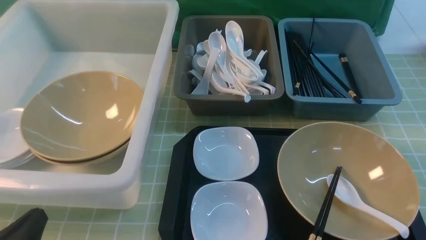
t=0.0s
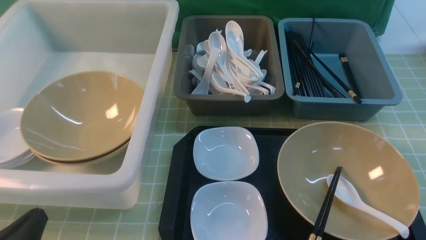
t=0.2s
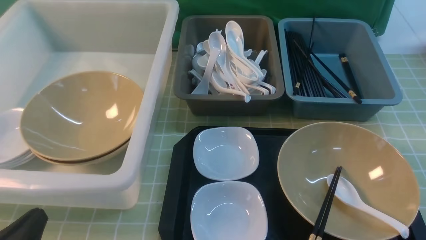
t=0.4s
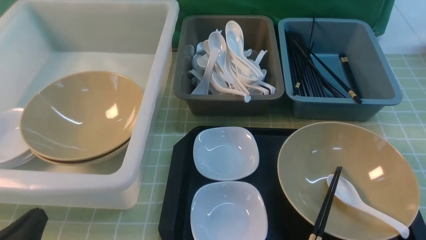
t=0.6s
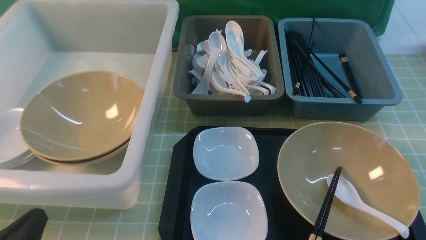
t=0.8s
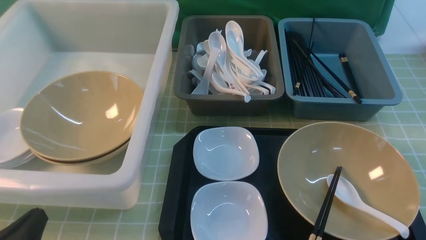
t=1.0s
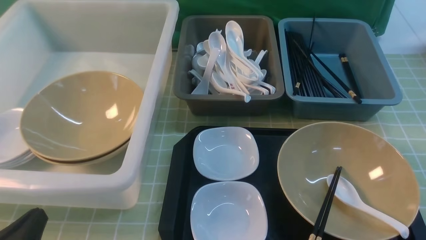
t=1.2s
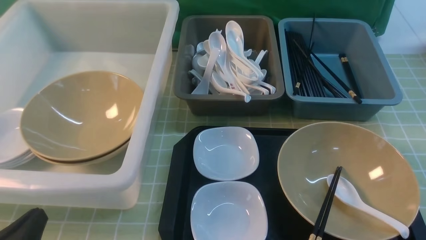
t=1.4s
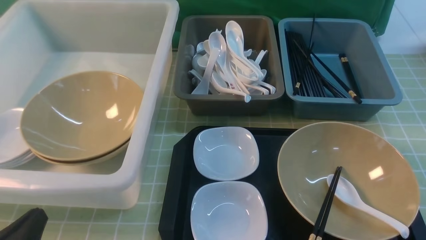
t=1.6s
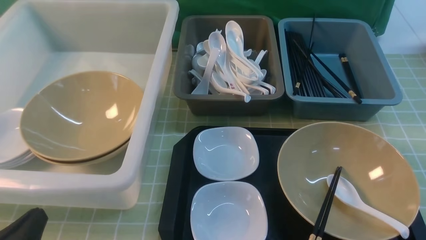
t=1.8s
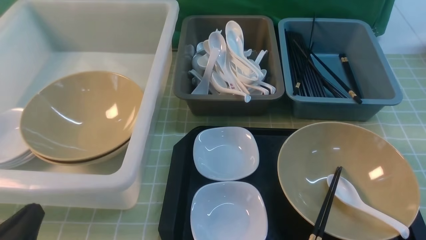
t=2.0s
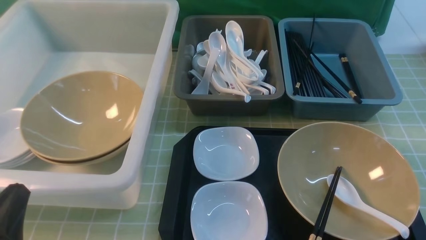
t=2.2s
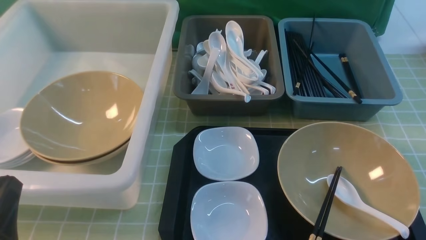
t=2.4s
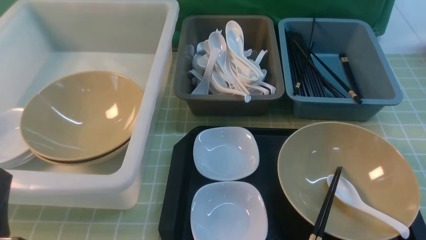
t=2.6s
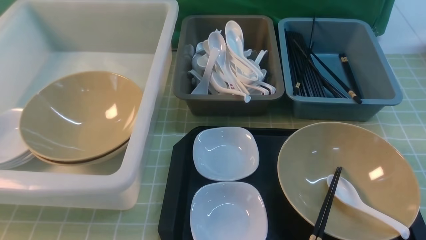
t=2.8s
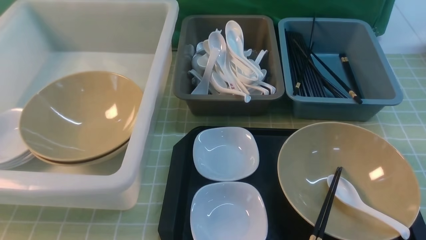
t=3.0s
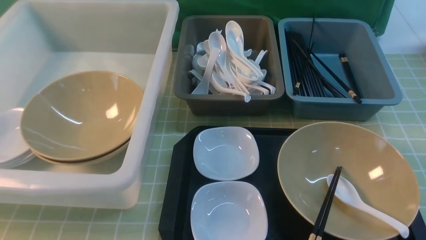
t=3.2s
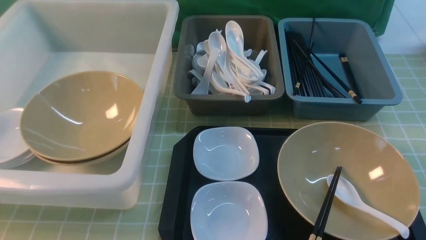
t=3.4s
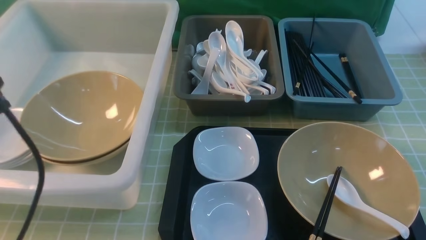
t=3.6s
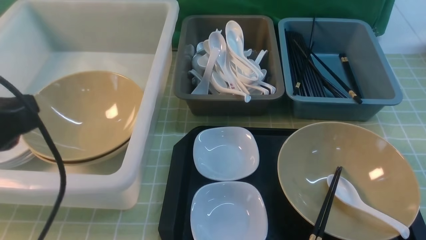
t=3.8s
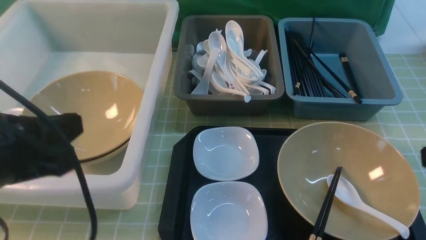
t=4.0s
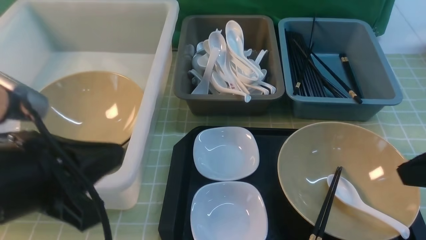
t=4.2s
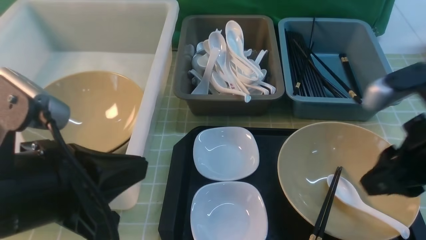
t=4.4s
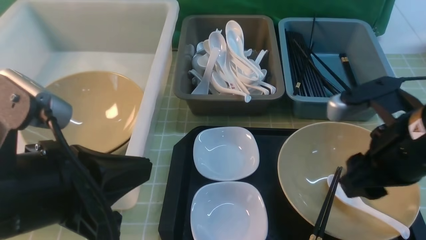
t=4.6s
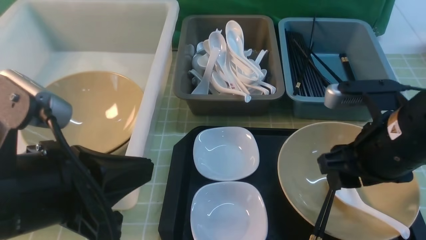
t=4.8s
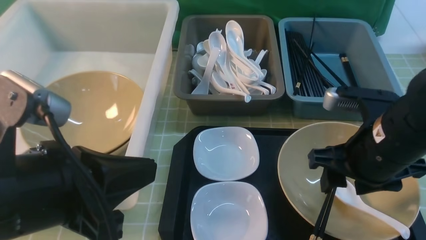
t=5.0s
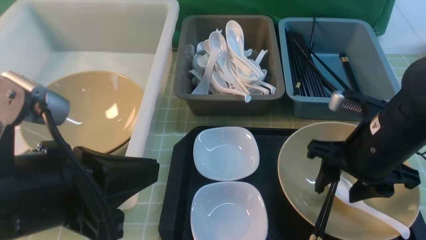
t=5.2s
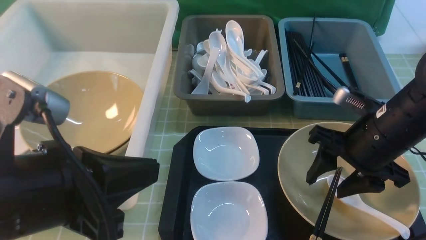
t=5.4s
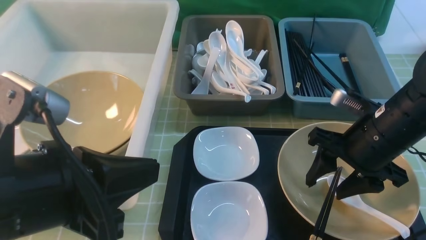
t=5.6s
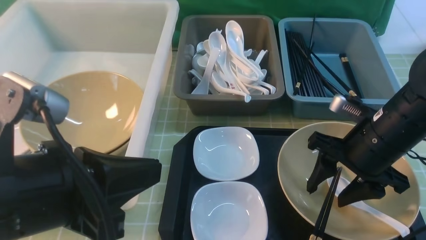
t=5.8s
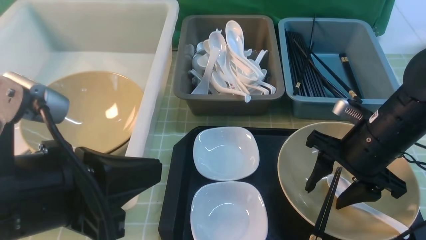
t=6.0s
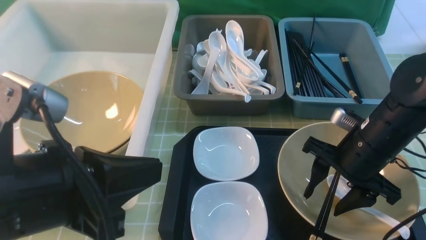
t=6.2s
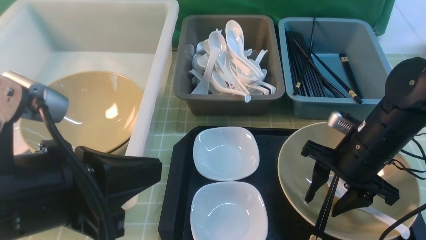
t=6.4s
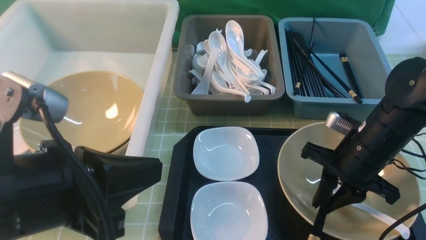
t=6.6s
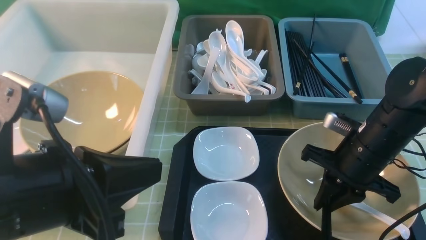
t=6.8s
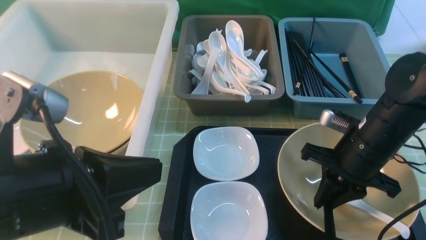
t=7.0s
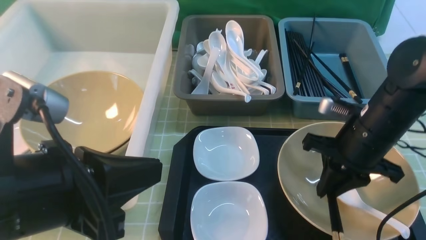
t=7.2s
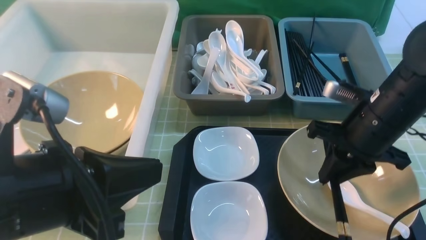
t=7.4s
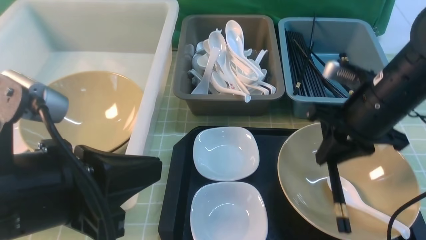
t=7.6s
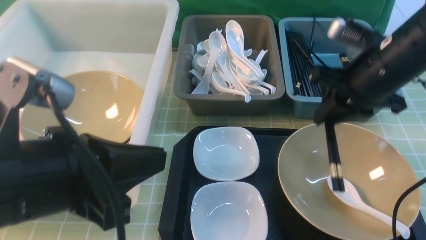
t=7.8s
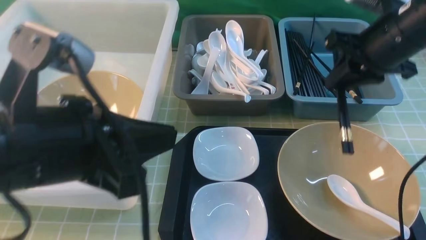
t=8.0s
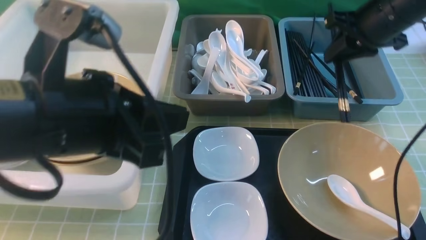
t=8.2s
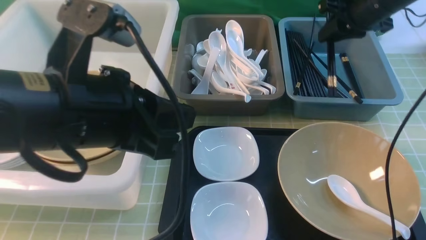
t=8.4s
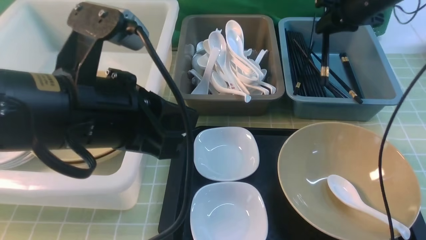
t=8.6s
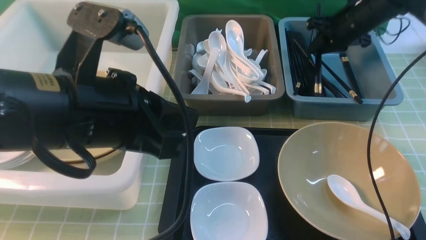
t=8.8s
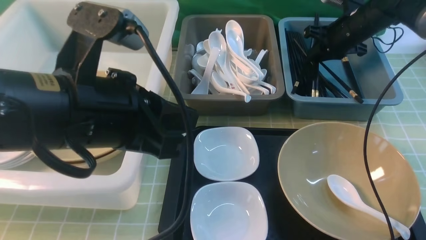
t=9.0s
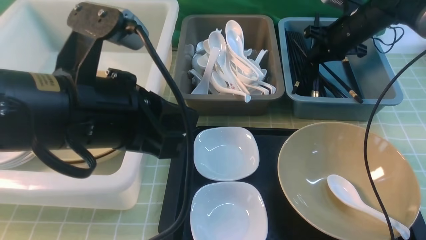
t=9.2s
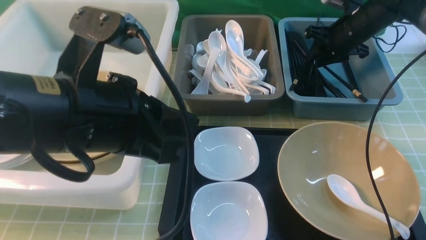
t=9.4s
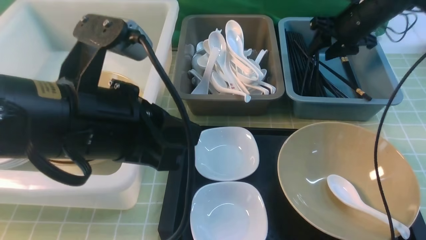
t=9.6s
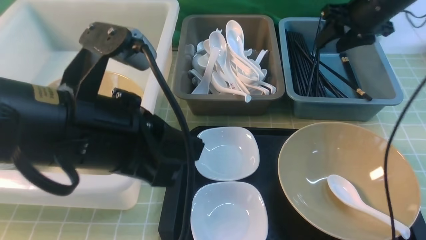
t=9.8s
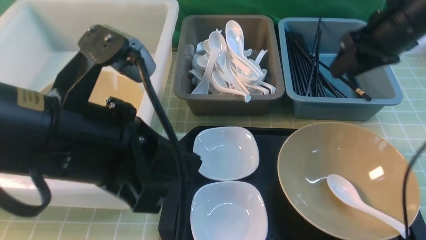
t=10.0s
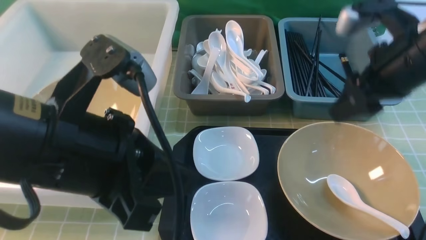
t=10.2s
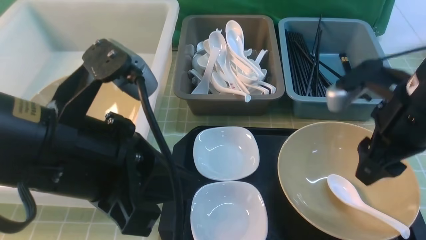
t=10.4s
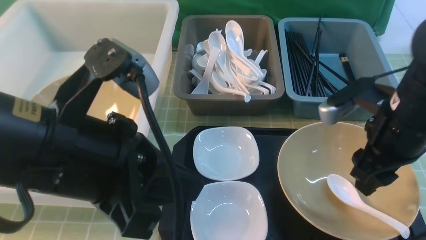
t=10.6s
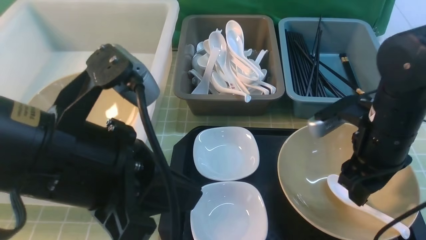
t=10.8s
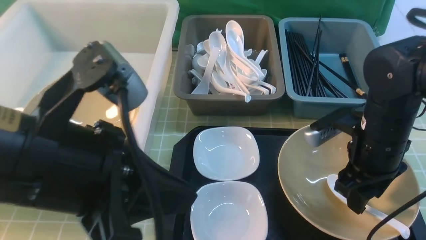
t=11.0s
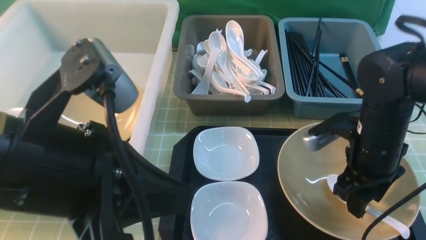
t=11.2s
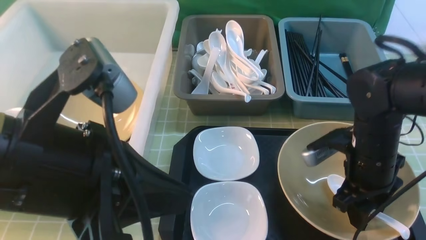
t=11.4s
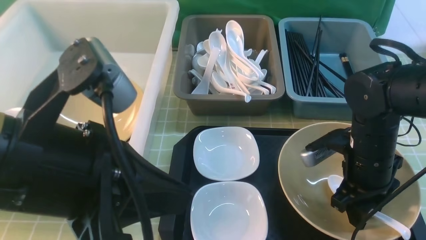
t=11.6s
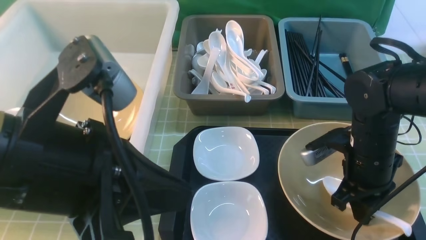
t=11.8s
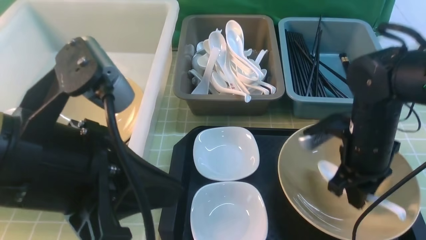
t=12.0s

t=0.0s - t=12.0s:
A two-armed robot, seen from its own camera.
Task of the whole recording: on green table put chopsticks spoon bowls plates into blue grey white boxes.
Step, t=0.0s - t=7.8s: use the right arm to grab the chopsticks.
Step, t=8.2s - t=10.0s: use the right arm to put the chopsticks into the small storage box on the right.
t=0.0s - t=1.6s: Neither gripper changes place.
t=1.6s - t=3.0s: The left gripper moves upward, about 10 cm.
t=3.0s - t=4.4s: The right gripper travels forward and to the left by roughly 20 cm, while the left gripper is displaced to the right, forward and upward by about 10 cm.
t=4.4s - t=6.0s: The right gripper shifts some 10 cm downward and forward.
t=6.0s - t=7.6s: The right gripper travels upward by roughly 5 cm, and closes up.
t=7.6s - t=9.0s: The right gripper goes some 25 cm forward. The left gripper is displaced forward by roughly 5 cm.
t=9.0s - t=10.4s: The right gripper goes approximately 25 cm backward, and opens its fingers.
t=10.4s - t=12.0s: The right gripper shifts roughly 10 cm downward, and closes up.

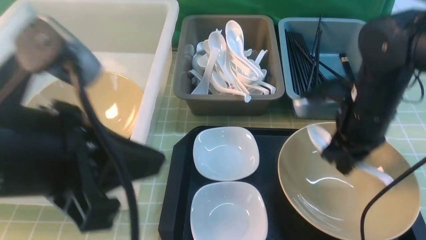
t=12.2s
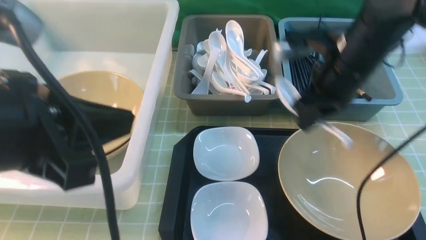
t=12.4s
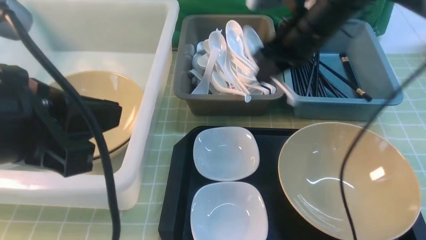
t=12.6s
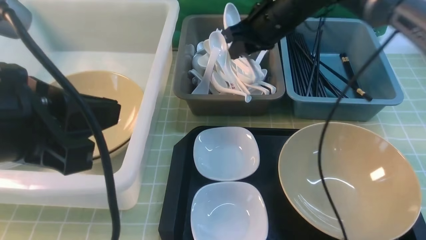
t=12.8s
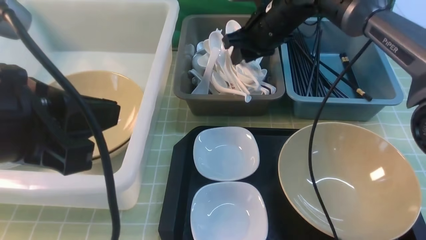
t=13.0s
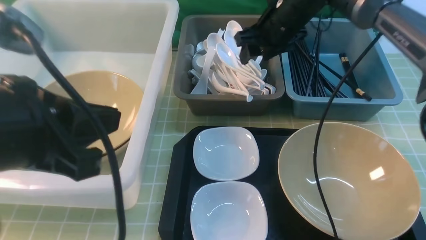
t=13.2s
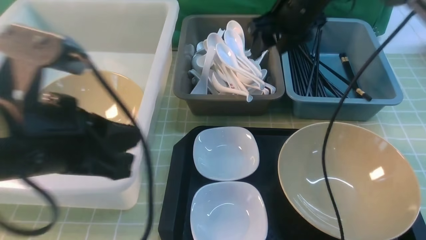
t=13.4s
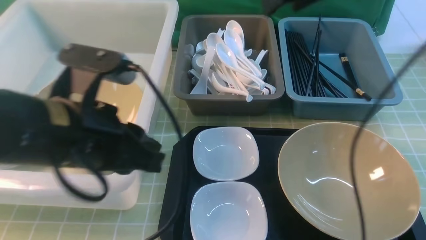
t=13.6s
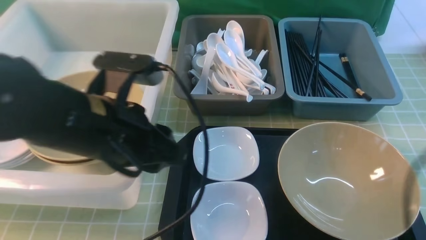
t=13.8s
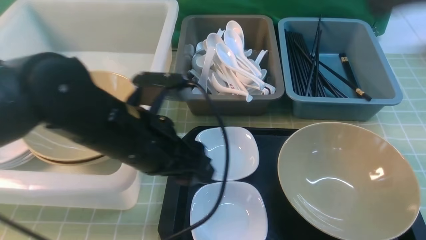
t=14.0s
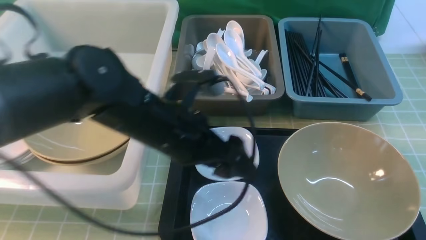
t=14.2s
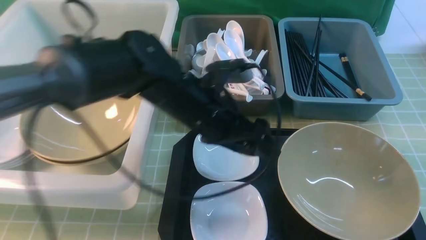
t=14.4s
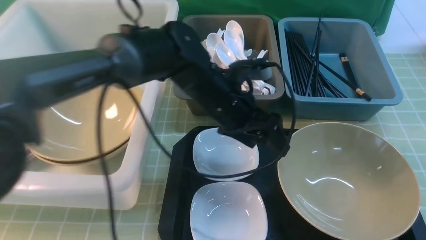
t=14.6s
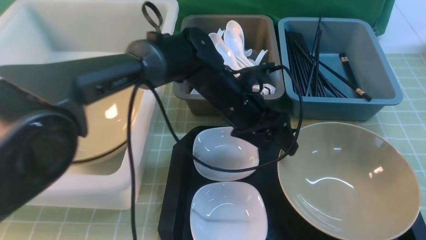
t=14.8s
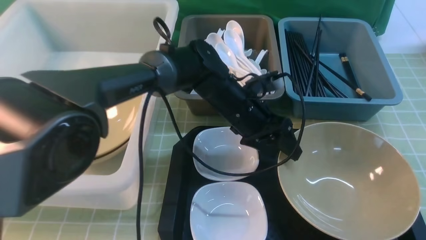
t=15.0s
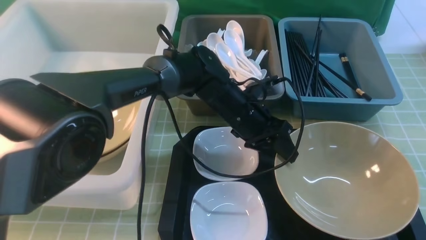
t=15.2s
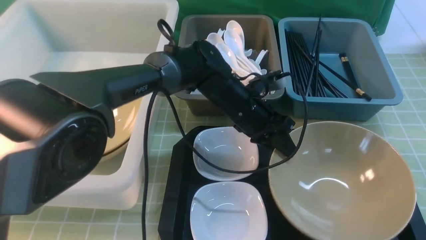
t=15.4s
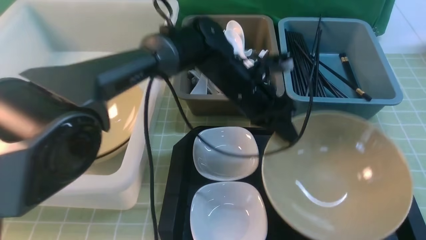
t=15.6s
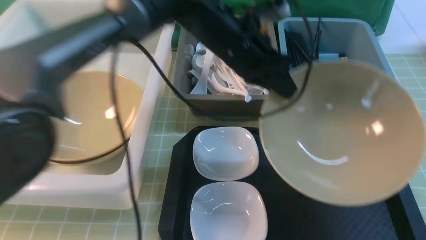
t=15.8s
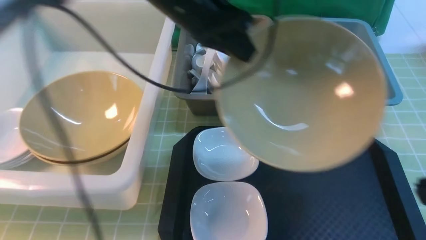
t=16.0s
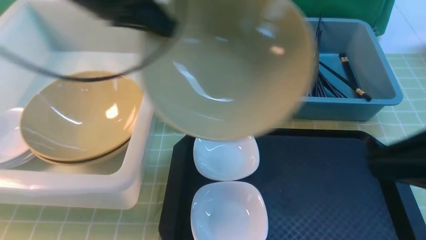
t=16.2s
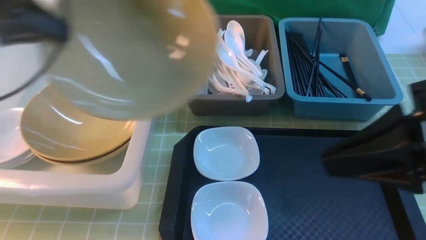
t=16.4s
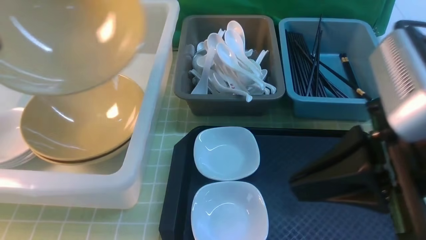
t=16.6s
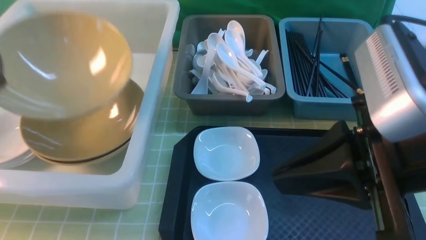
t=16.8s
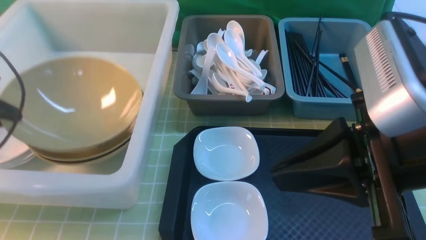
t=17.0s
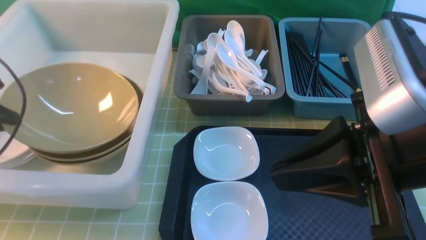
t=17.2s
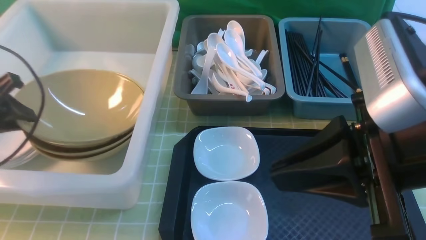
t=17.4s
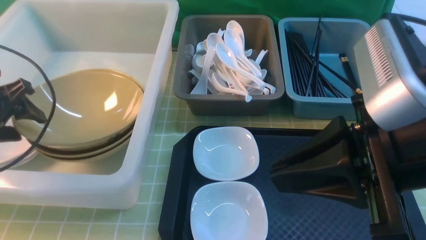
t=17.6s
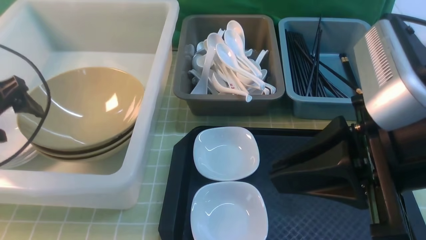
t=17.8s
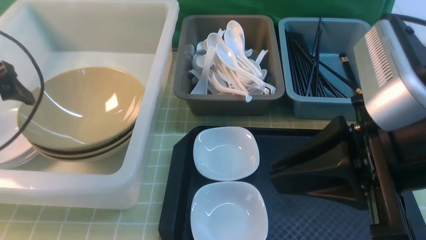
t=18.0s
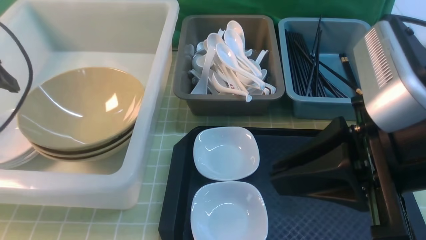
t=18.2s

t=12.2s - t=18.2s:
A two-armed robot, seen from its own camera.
Task of the whole recording: on green table put chopsticks spoon bowls plates into blue grey white boxes.
Step, t=12.2s - t=13.2s: use the right arm to put the soup spoon into the small storage box in the middle.
Step, t=13.4s - t=15.8s: use the left arm to grab the yellow noodle bowl on the left.
Step, t=16.0s - t=17.8s: use the left arm to put the noodle bowl into the large storage box on the left.
t=12.2s - t=13.8s: The right gripper moves upward, approximately 25 cm, and opens its fingers, while the left gripper heads forward and downward, covering some 10 cm, and opens up.
t=13.8s - t=15.2s: The right gripper shifts some 25 cm backward and downward, and closes; the left gripper heads forward, to the right and downward, covering about 25 cm, and opens and closes again.
t=15.2s - t=16.6s: The left gripper heads to the left and upward, covering roughly 40 cm; the right gripper is displaced forward and to the left by approximately 15 cm.
t=16.6s - t=18.2s: The left gripper reaches approximately 10 cm downward, then returns, and opens up.
